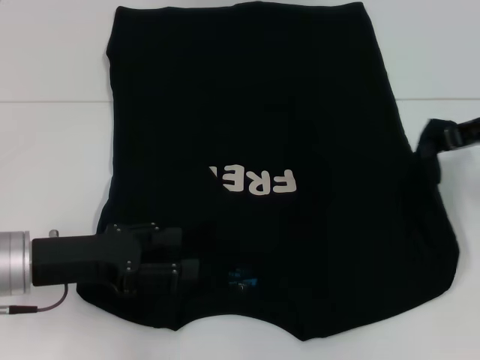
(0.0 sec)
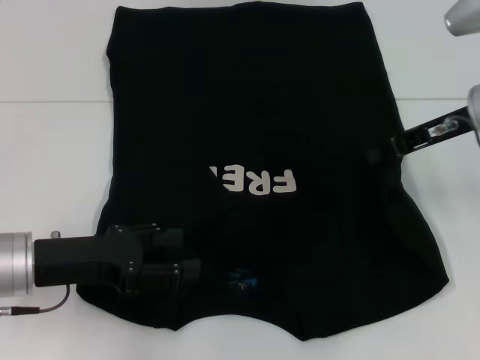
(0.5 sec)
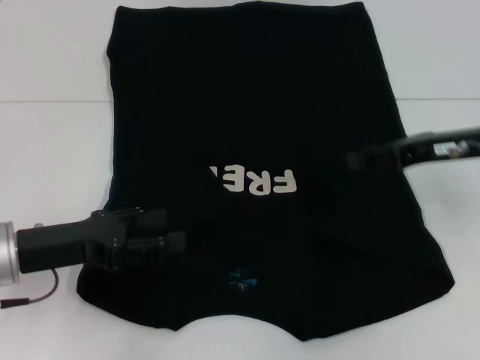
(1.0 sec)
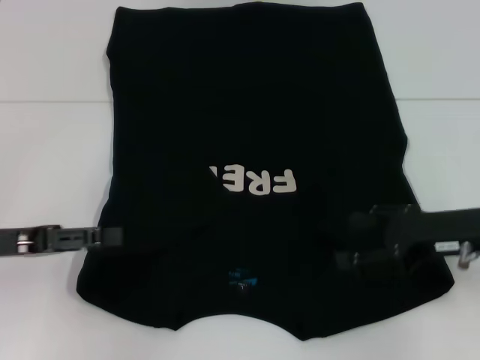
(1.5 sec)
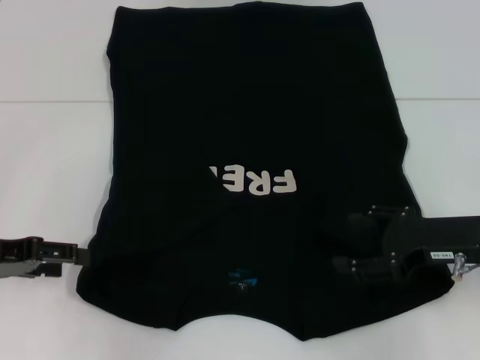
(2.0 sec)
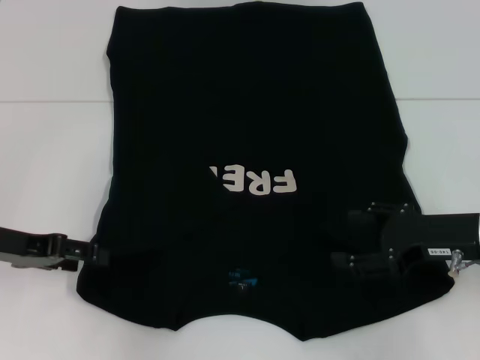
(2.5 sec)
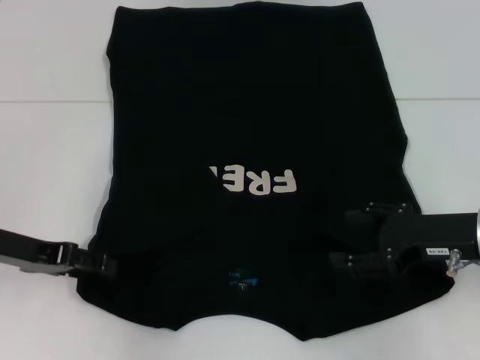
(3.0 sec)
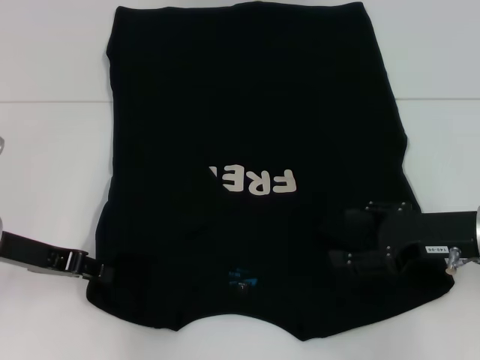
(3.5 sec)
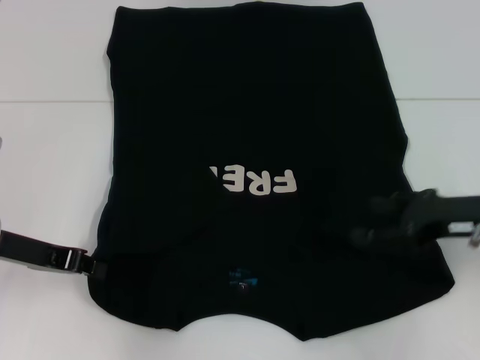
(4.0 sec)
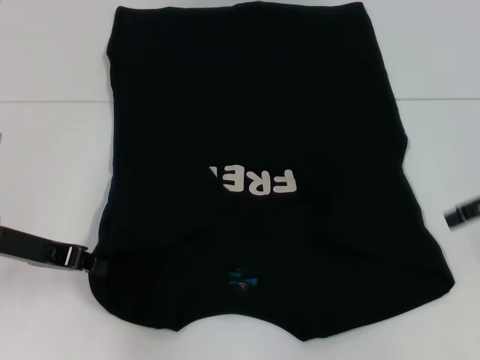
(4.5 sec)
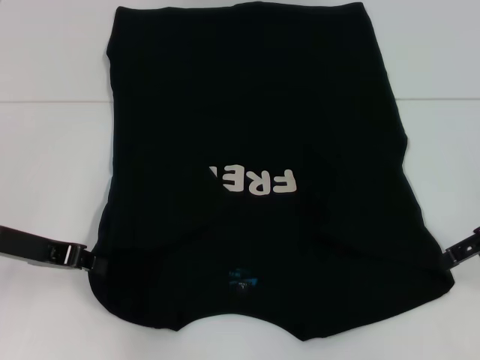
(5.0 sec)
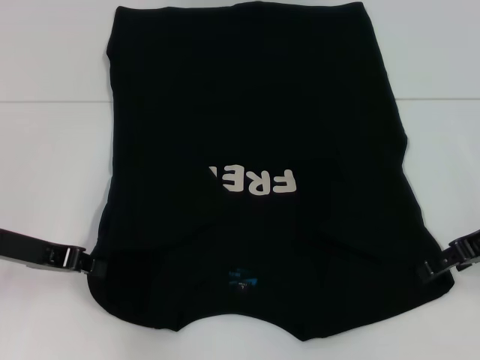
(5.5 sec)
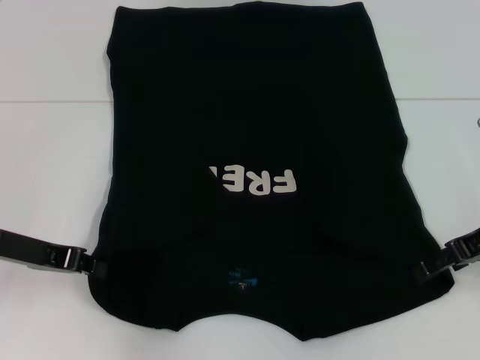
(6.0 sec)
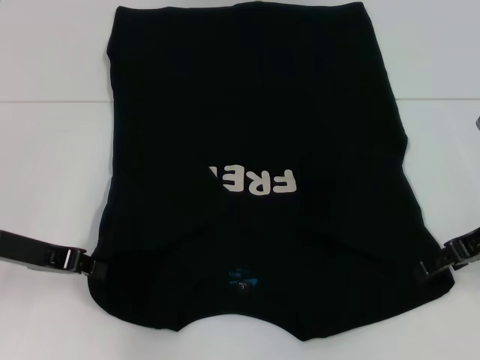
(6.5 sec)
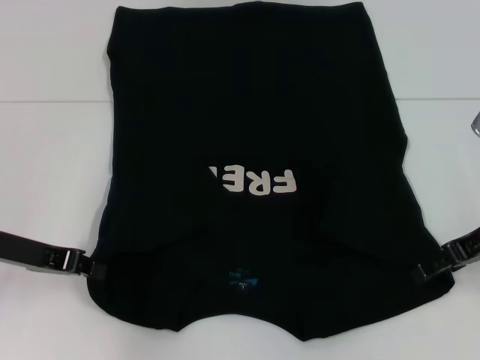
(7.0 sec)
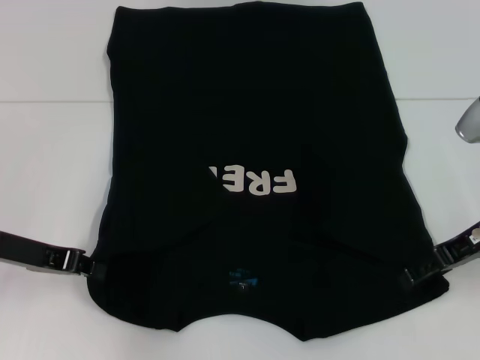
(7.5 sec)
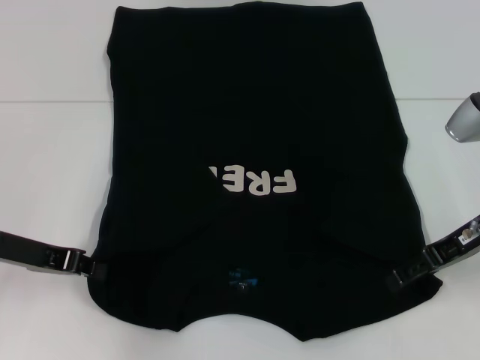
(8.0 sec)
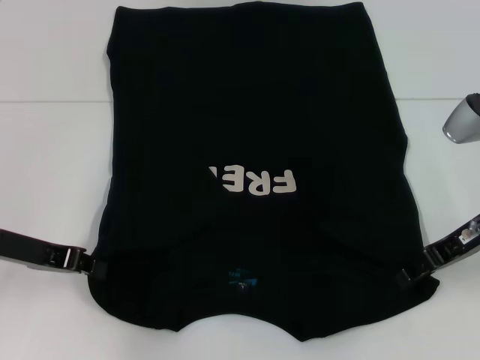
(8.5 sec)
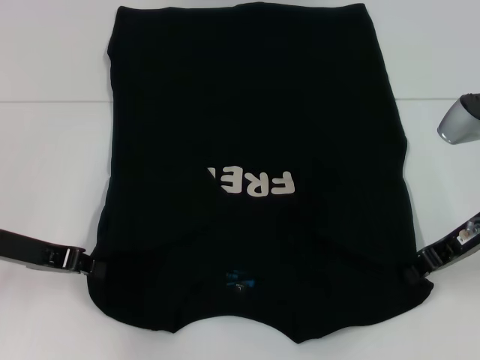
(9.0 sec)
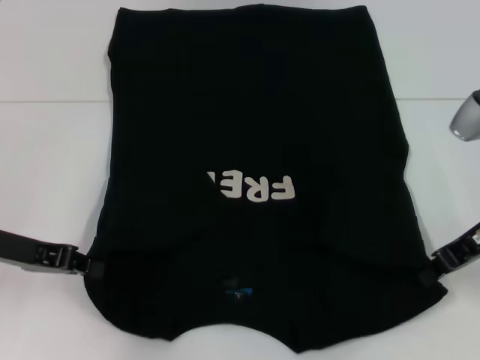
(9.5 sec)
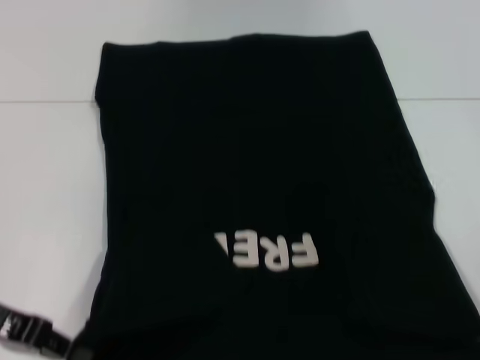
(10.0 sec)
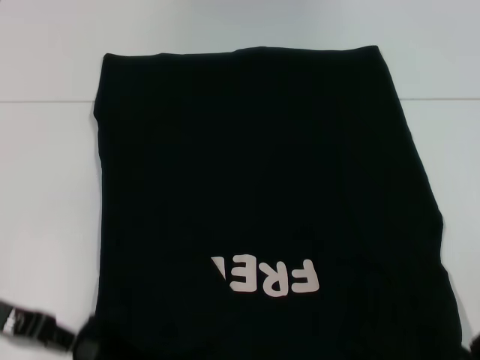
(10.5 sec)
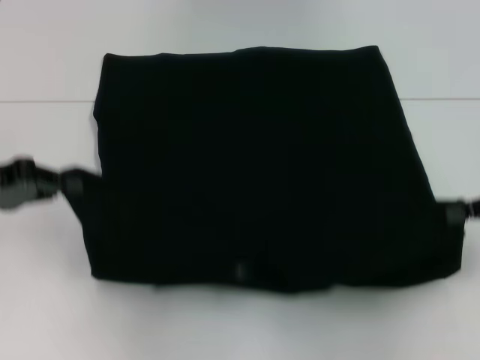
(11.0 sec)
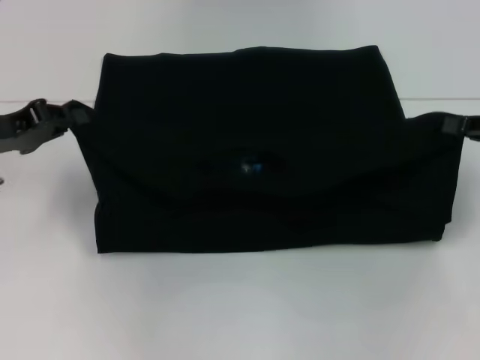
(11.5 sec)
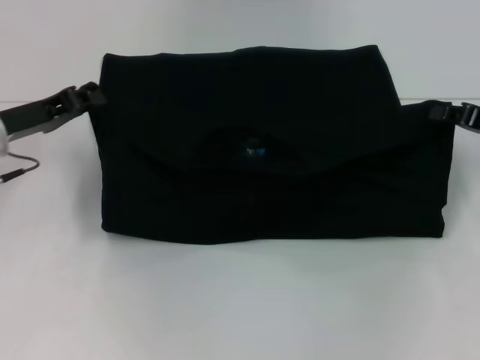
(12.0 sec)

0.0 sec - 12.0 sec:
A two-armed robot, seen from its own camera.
Step, 1.5 sec - 4.0 sec: Grab the bottom left corner with your left hand.
Step, 4.5 sec - 9.0 sec: Grab the bottom right corner with your right hand.
0.0 sec - 2.0 sec: The left gripper is displaced to the left by roughly 10 cm. Meanwhile the right gripper is displaced downward and backward by about 15 cm, and opens up.
2.0 sec - 4.0 sec: The left gripper ends up some 5 cm from where it was, and closes.
4.0 sec - 6.0 sec: The right gripper reaches approximately 10 cm upward, then returns.
6.0 sec - 8.0 sec: The grippers stay close to where they were, moving slightly.
8.0 sec - 10.0 sec: The right gripper ends up some 5 cm from where it was, and closes.
10.0 sec - 12.0 sec: The right gripper heads forward, covering about 5 cm. The left gripper travels forward by roughly 10 cm.

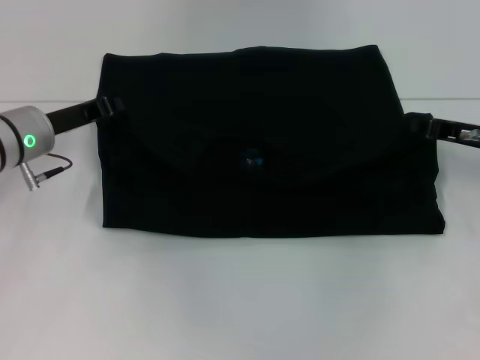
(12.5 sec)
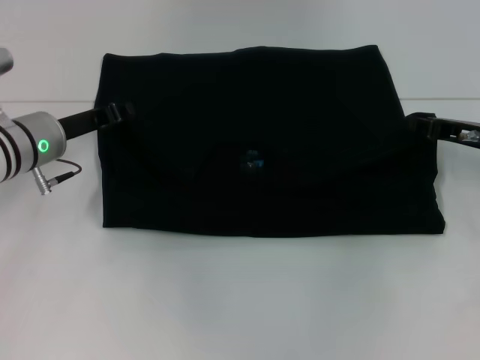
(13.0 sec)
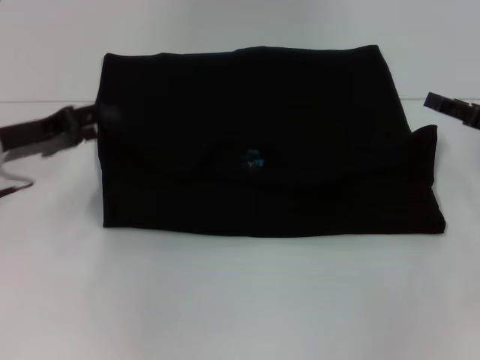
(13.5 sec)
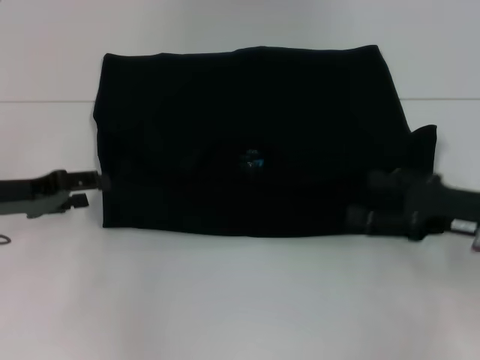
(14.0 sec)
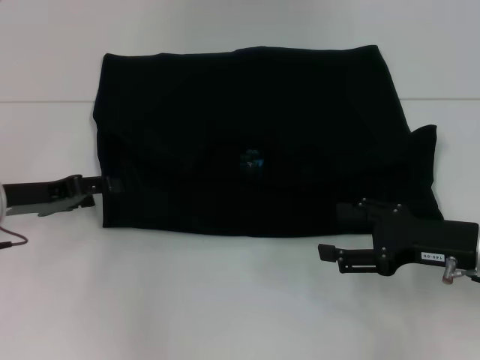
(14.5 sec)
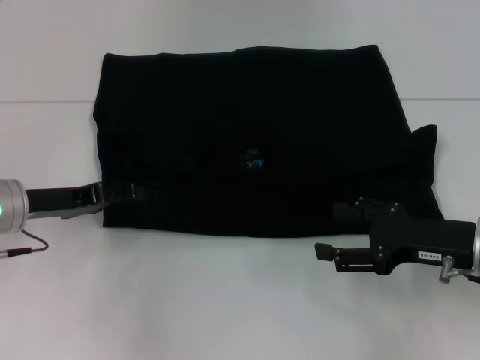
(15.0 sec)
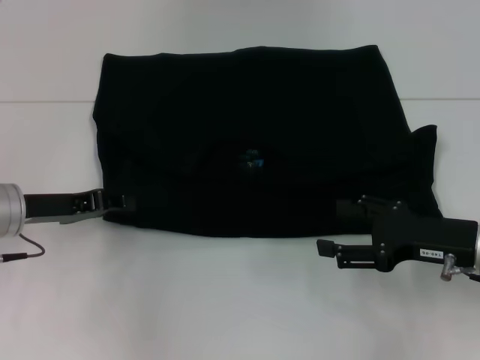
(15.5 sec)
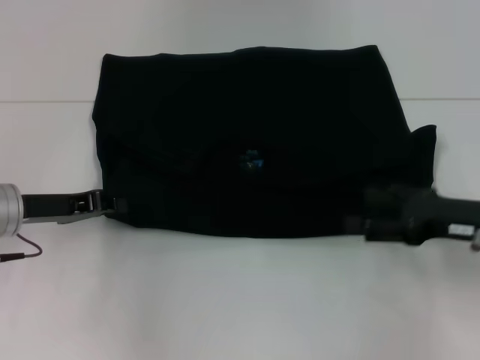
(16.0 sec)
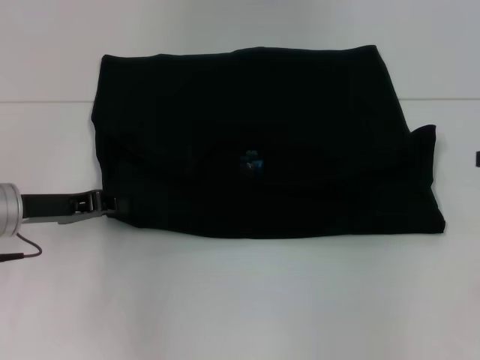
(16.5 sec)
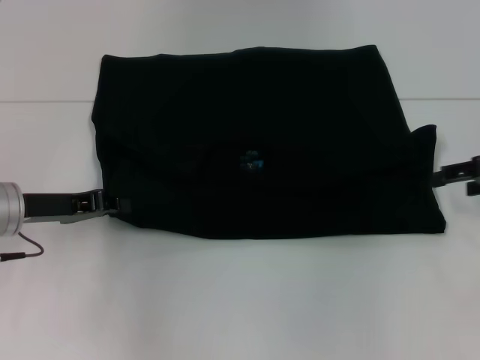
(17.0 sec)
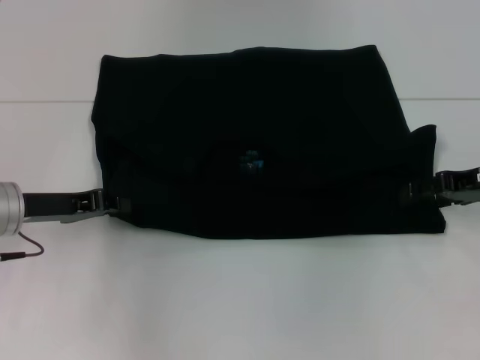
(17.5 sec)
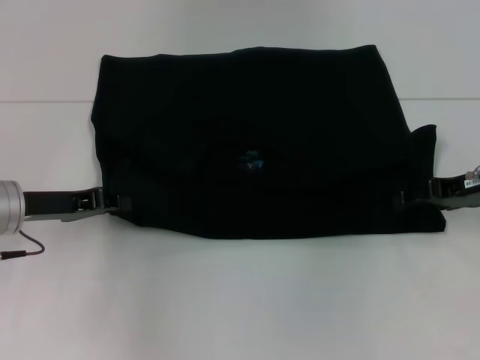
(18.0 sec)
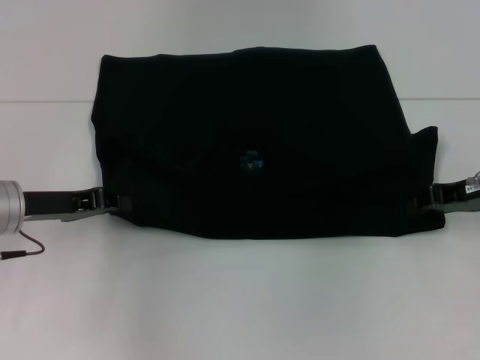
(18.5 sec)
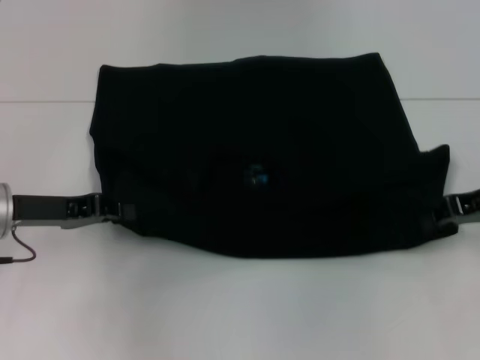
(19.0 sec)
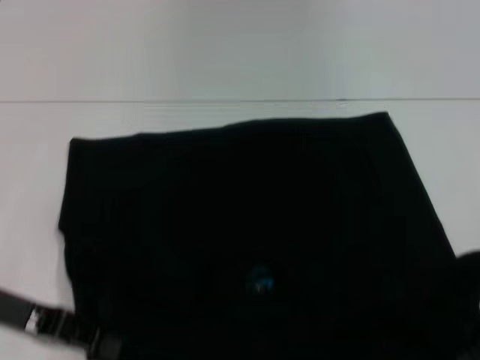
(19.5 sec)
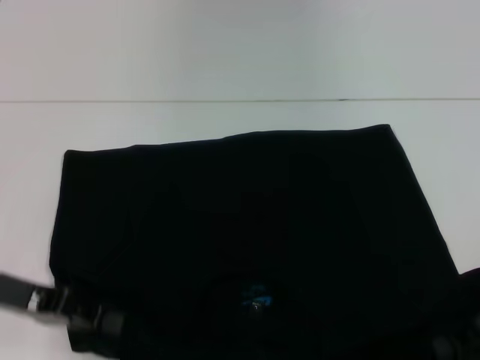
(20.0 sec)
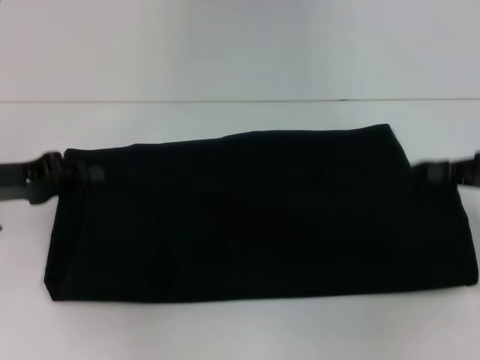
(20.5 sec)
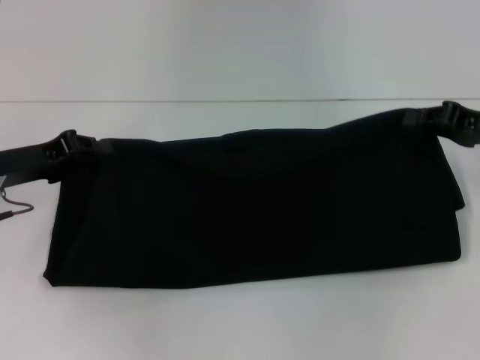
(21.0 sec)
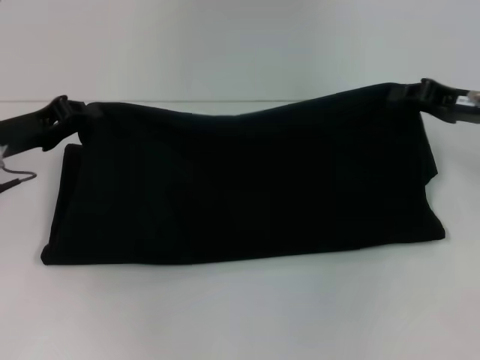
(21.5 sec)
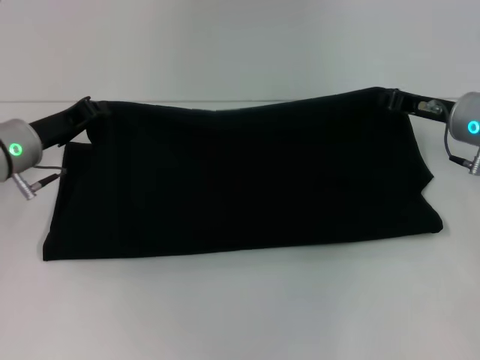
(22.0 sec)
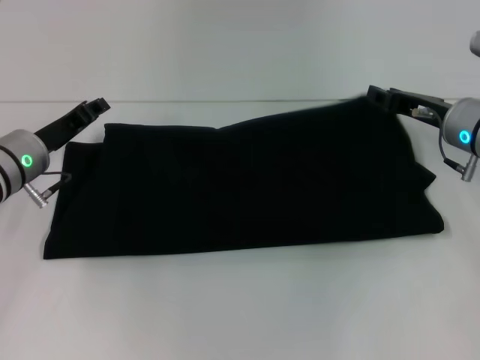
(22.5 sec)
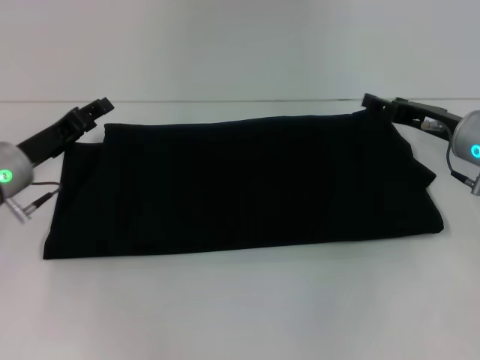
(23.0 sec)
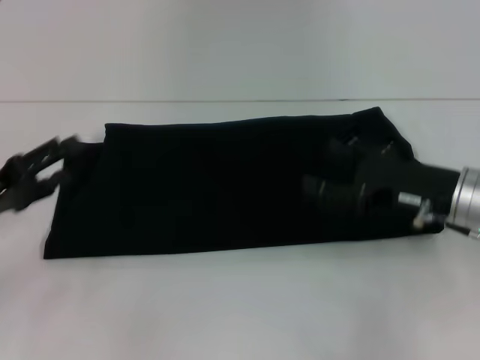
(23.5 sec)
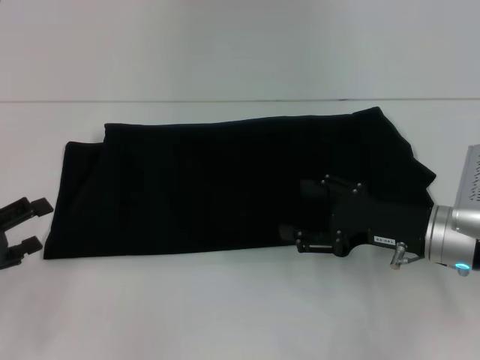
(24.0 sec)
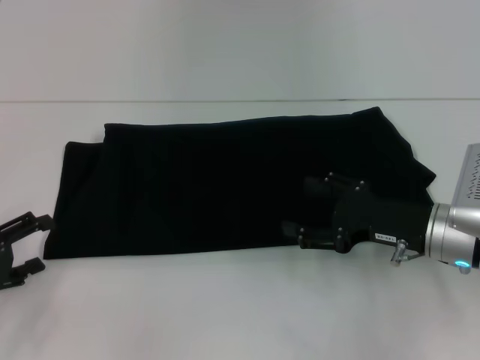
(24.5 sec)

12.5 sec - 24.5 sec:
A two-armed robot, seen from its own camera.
Step, 13.5 sec - 19.5 sec: Pull the clothes with your left hand.
Step, 13.5 sec - 19.5 sec: Pull the clothes with your right hand.
Step, 20.0 sec - 22.5 sec: Fold the clothes with your right hand.
12.5 sec - 14.5 sec: The right gripper shifts roughly 10 cm backward, and opens its fingers; the left gripper is displaced backward by roughly 5 cm, and opens its fingers.
14.5 sec - 16.5 sec: The right gripper moves to the right, upward and forward, about 15 cm. The left gripper closes its fingers.
16.5 sec - 18.5 sec: The right gripper goes some 10 cm to the left and downward, and closes.
18.5 sec - 20.5 sec: The right gripper shifts approximately 5 cm to the right. The left gripper changes place by roughly 5 cm.
20.5 sec - 22.5 sec: The left gripper heads to the right and forward, covering approximately 10 cm; the right gripper moves to the left and forward, roughly 15 cm.
22.5 sec - 24.5 sec: The right gripper is displaced backward by approximately 10 cm, and opens up. Meanwhile the left gripper is displaced backward and to the left by approximately 20 cm, and opens.

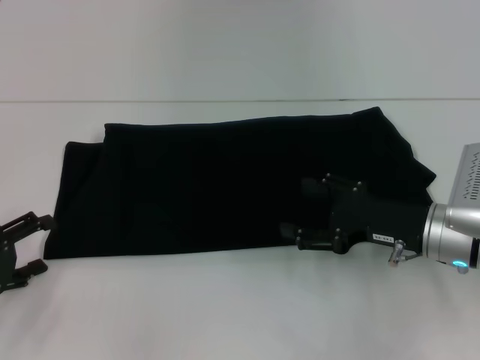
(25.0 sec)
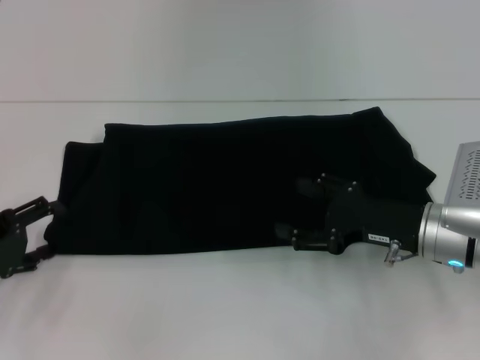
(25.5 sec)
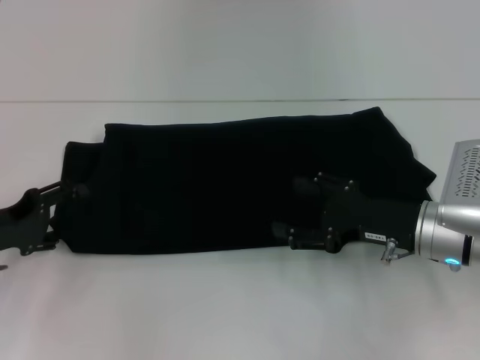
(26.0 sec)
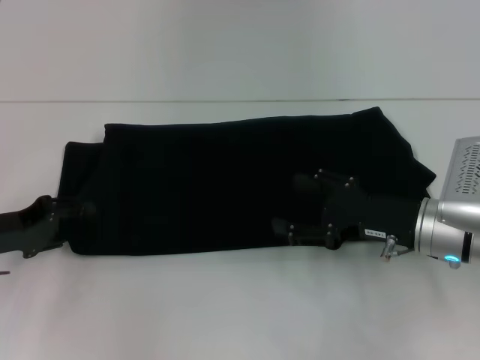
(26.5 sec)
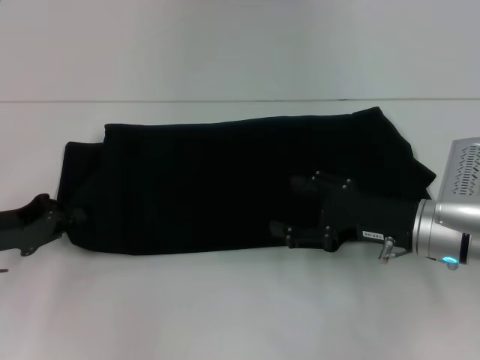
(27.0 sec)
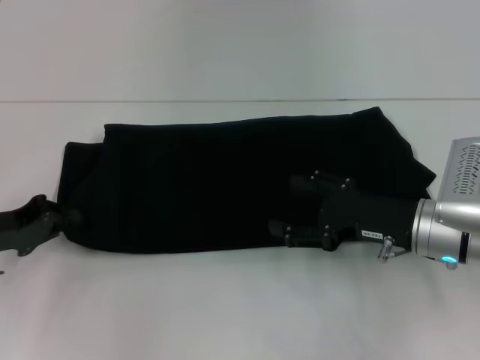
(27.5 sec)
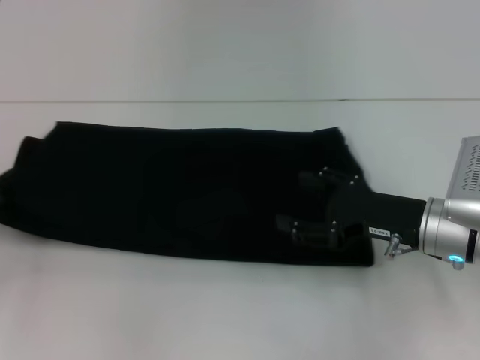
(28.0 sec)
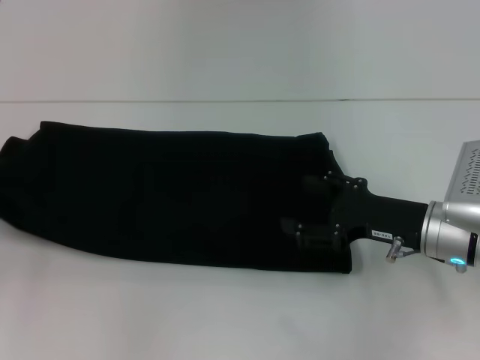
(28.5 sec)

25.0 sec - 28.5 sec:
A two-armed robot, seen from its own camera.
25.0 sec - 27.0 sec: The left gripper goes roughly 5 cm forward, and closes its fingers.
27.0 sec - 28.5 sec: The left gripper travels to the left by approximately 10 cm, and closes its fingers.
